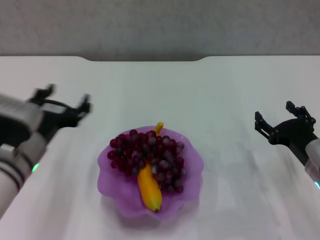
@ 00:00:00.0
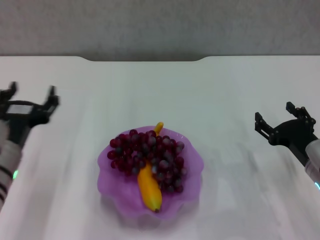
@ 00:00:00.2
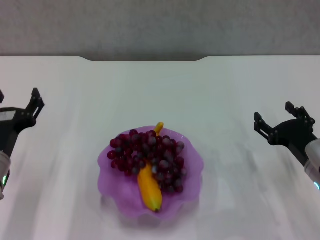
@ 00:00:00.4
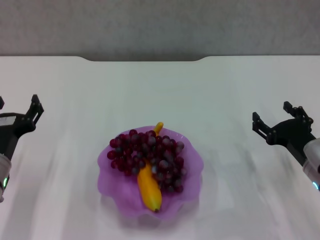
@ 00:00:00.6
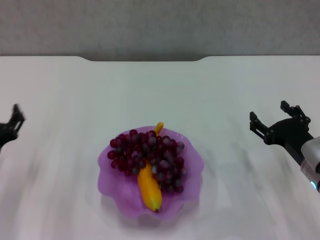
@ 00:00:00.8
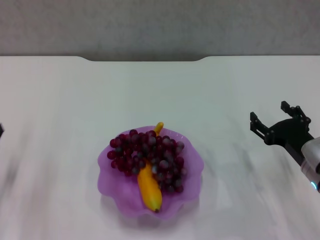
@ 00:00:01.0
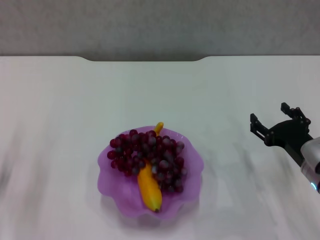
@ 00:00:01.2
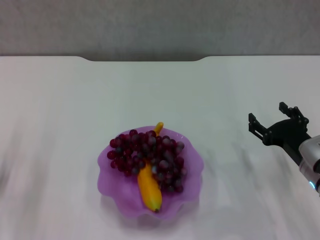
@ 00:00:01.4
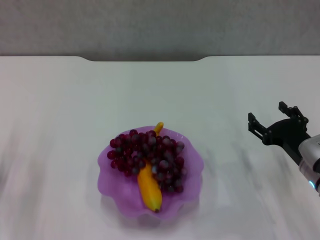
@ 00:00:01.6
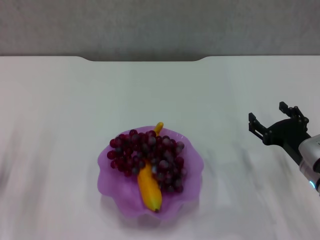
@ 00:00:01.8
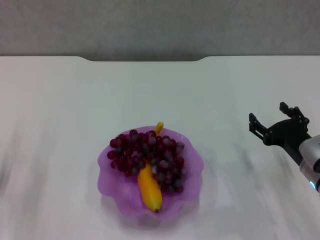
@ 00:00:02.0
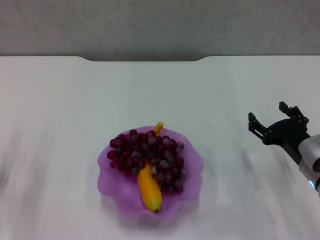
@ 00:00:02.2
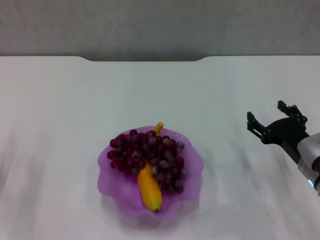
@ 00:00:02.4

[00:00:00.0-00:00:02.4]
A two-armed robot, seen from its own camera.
00:00:00.0 to 00:00:01.2: The left gripper travels to the left and downward by about 15 cm.
00:00:01.2 to 00:00:02.4: Neither gripper changes place.
